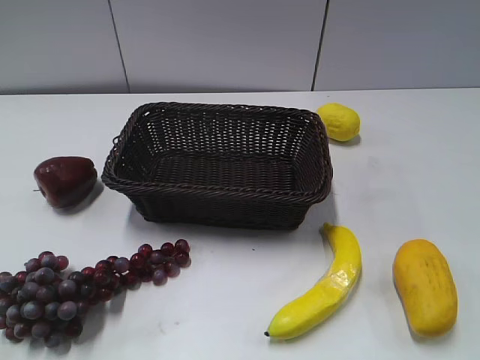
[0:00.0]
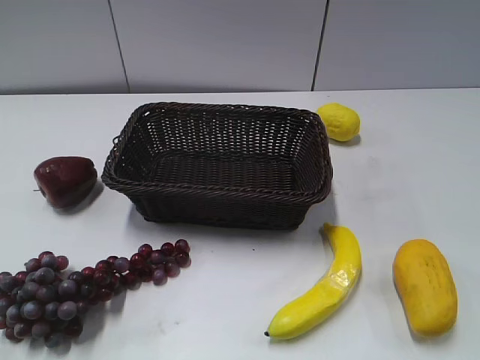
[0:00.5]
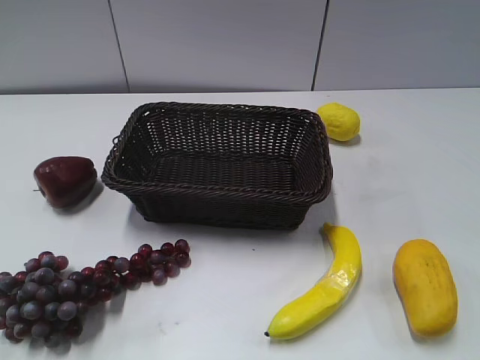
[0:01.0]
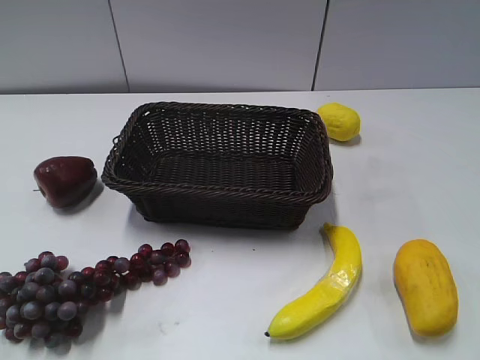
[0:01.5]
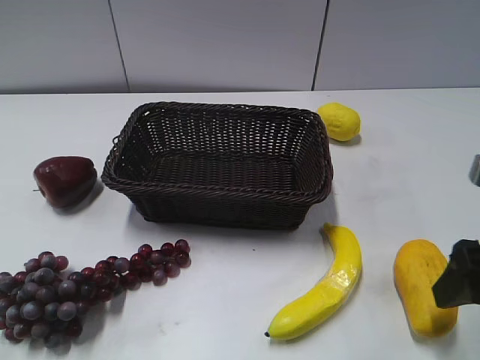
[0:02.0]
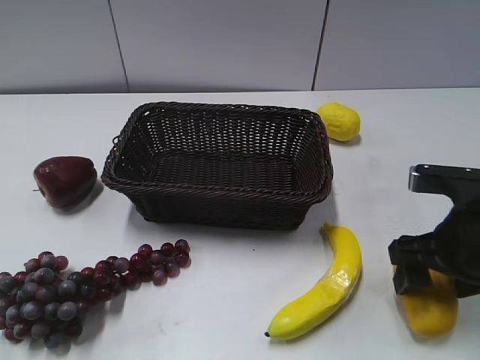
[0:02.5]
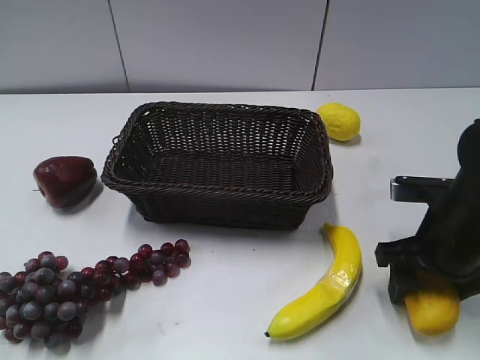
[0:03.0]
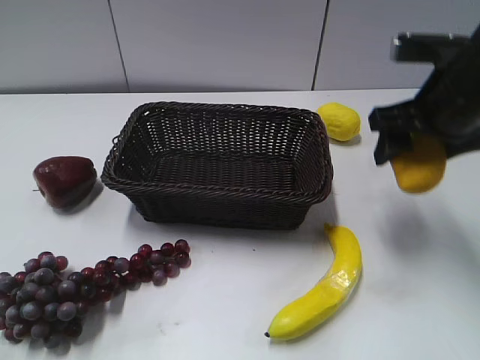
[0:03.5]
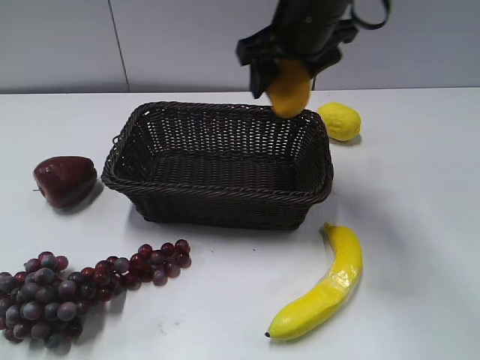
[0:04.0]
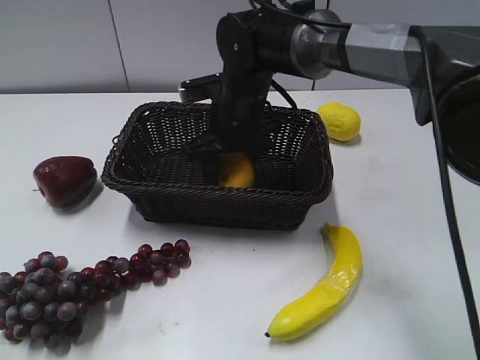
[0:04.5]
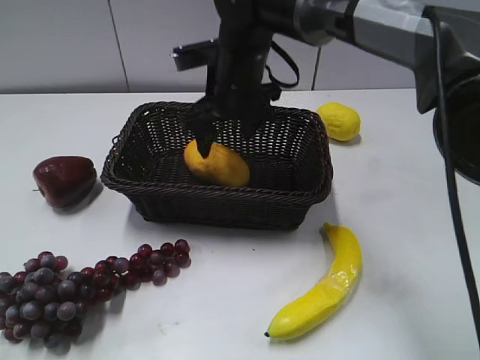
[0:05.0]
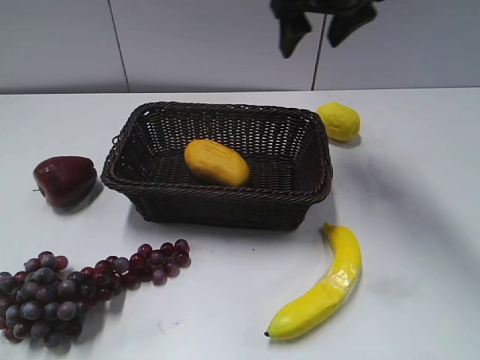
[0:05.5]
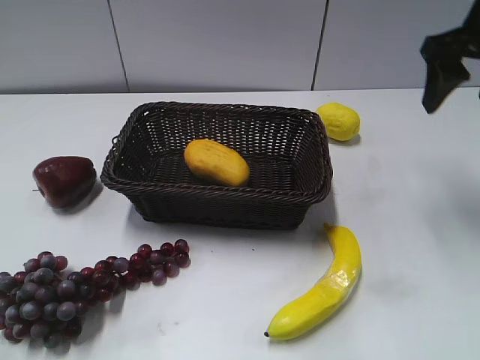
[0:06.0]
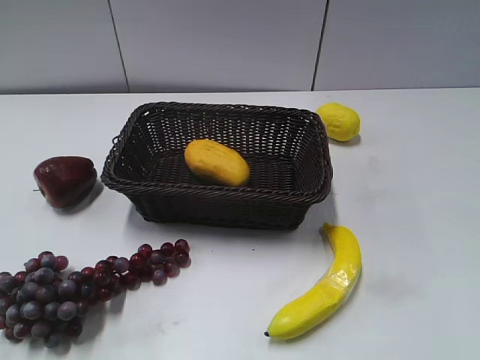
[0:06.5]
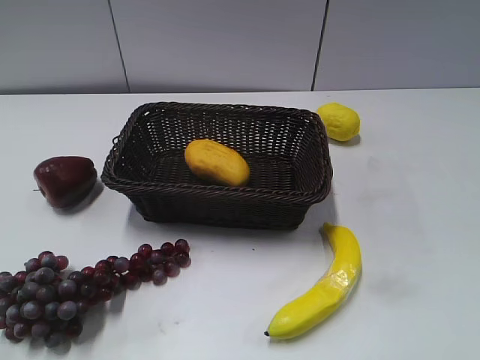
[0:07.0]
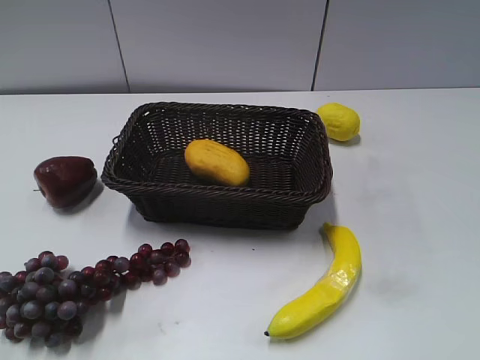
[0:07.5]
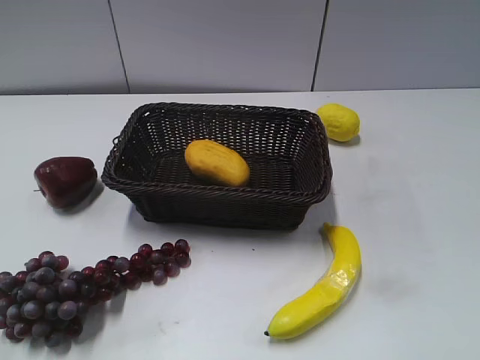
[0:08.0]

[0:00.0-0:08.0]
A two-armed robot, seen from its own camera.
Step, 0:02.0 to 0:02.5: Grasp the mango with right gripper.
Step, 0:03.0 to 0:04.5: Place the mango in the basket with right gripper.
0:02.0 to 0:04.0: The right gripper shifts about 30 cm to the left and forward.
0:04.0 to 0:06.0: The right gripper goes approximately 25 cm to the right.
0:06.0 to 0:08.0: The right gripper goes approximately 35 cm backward.
